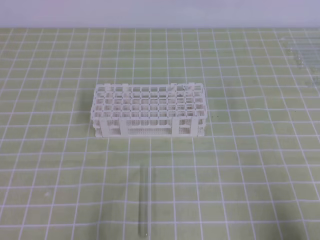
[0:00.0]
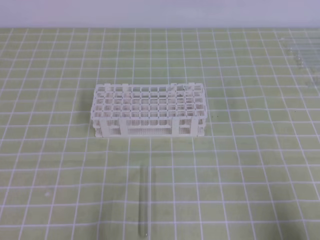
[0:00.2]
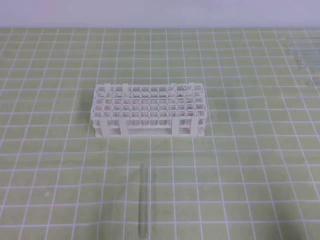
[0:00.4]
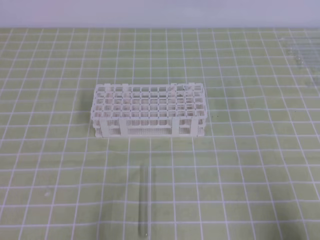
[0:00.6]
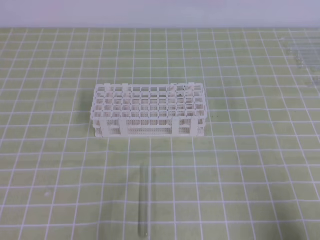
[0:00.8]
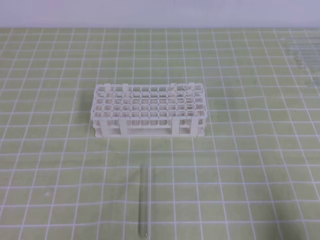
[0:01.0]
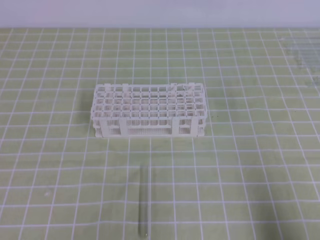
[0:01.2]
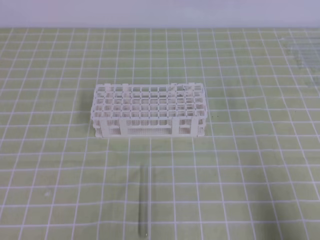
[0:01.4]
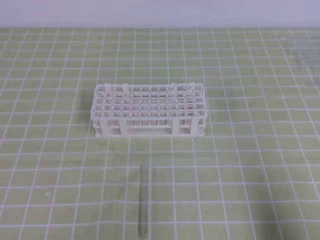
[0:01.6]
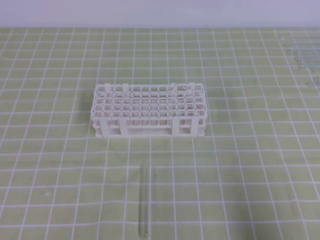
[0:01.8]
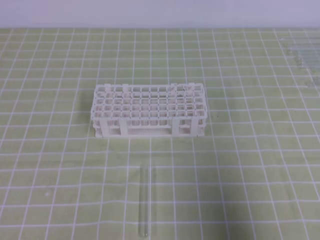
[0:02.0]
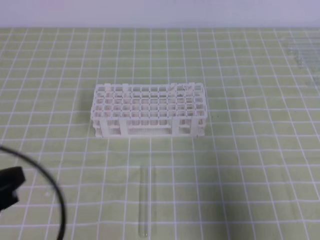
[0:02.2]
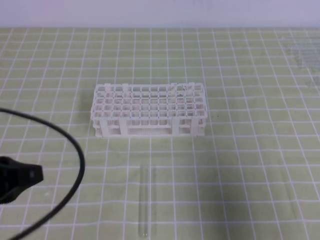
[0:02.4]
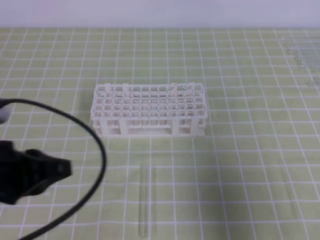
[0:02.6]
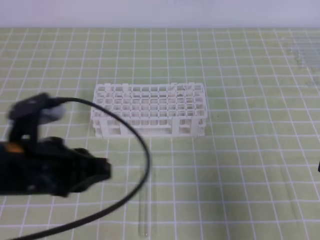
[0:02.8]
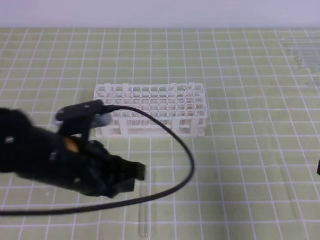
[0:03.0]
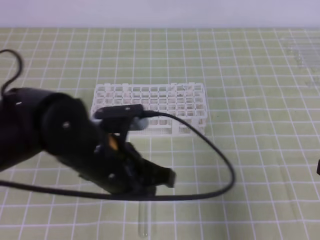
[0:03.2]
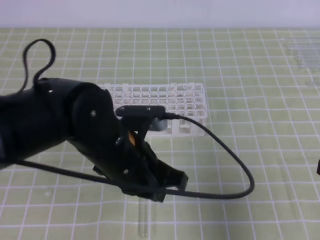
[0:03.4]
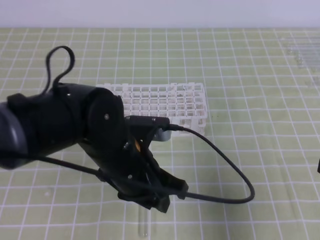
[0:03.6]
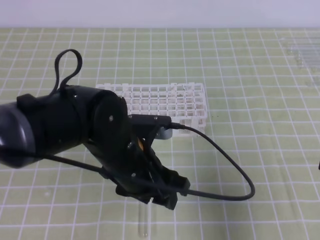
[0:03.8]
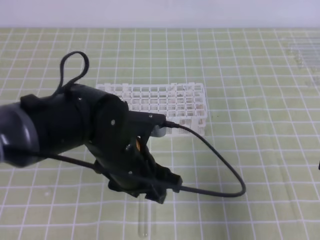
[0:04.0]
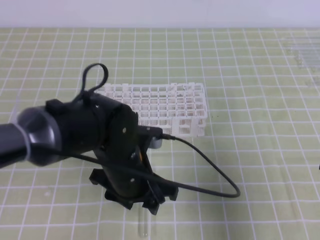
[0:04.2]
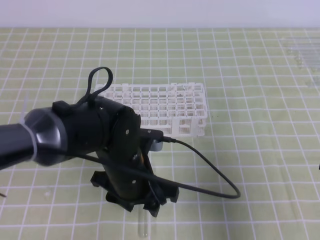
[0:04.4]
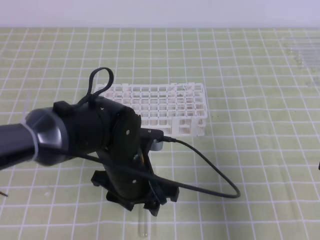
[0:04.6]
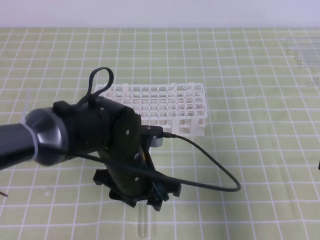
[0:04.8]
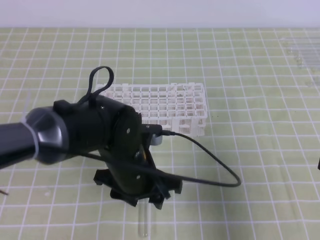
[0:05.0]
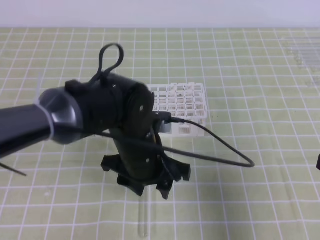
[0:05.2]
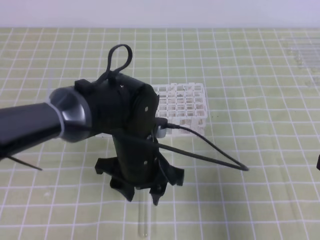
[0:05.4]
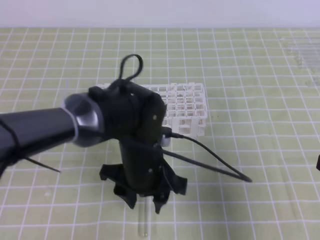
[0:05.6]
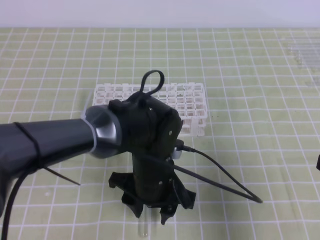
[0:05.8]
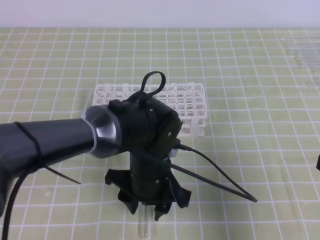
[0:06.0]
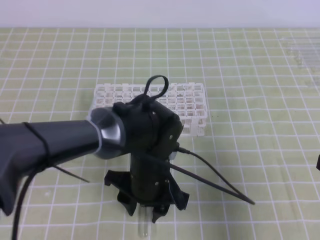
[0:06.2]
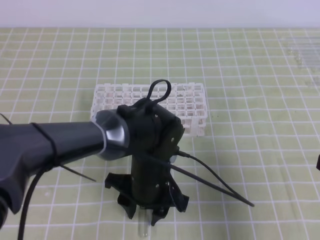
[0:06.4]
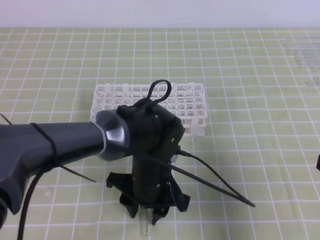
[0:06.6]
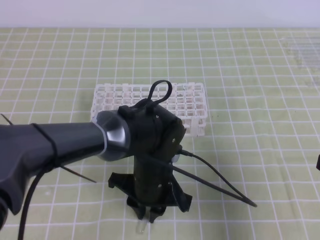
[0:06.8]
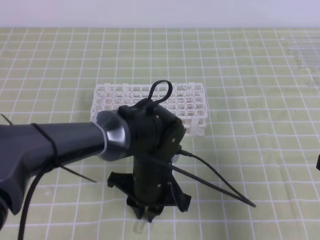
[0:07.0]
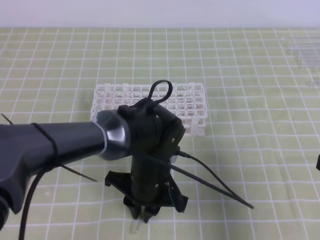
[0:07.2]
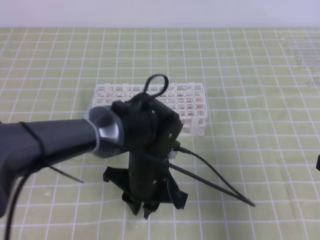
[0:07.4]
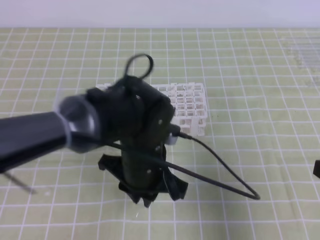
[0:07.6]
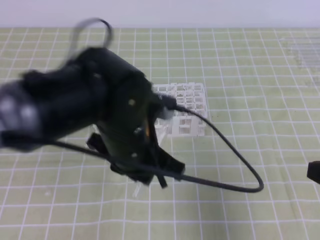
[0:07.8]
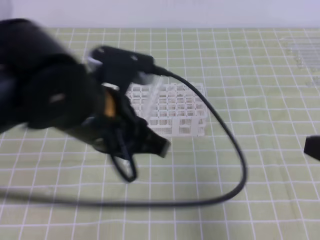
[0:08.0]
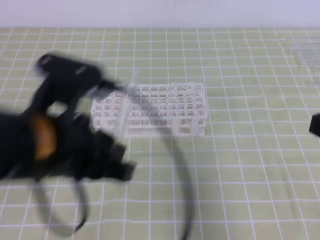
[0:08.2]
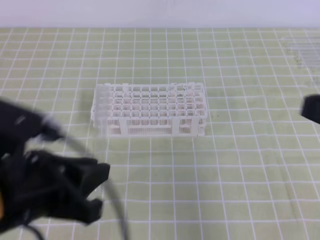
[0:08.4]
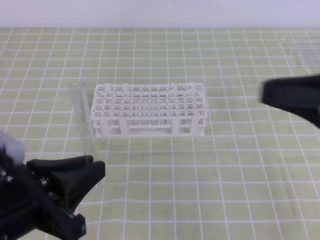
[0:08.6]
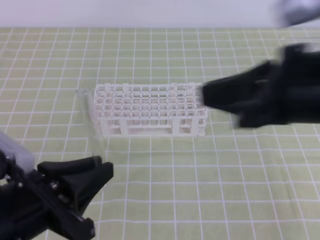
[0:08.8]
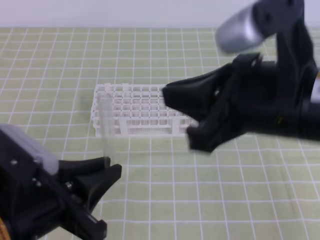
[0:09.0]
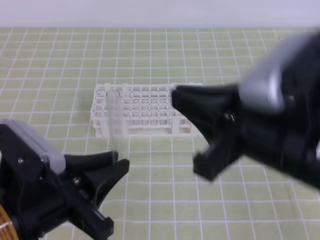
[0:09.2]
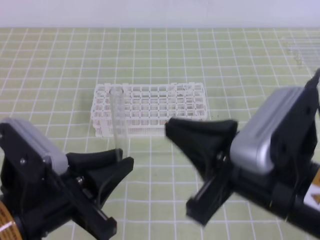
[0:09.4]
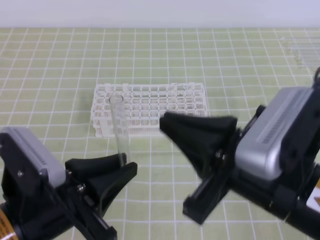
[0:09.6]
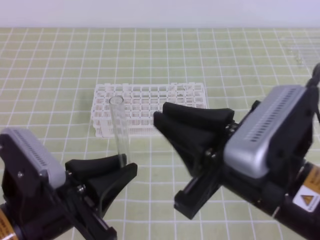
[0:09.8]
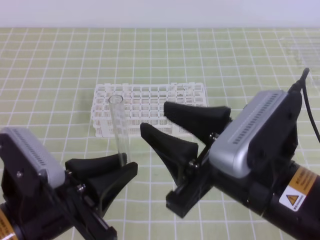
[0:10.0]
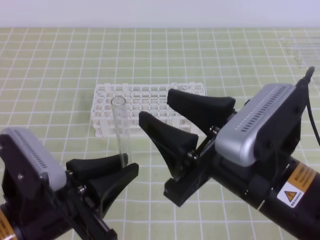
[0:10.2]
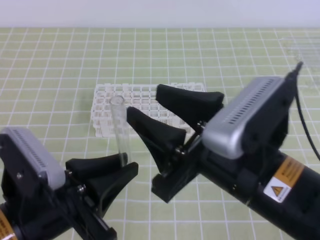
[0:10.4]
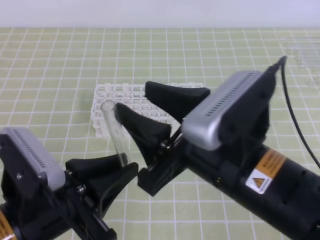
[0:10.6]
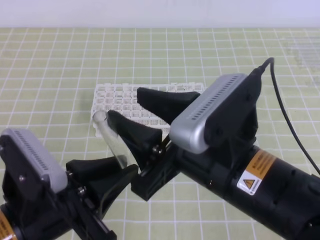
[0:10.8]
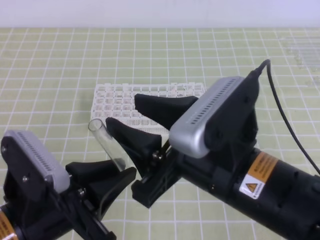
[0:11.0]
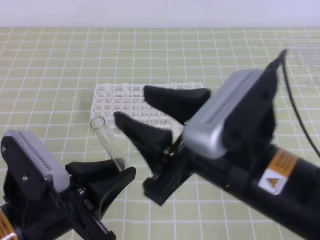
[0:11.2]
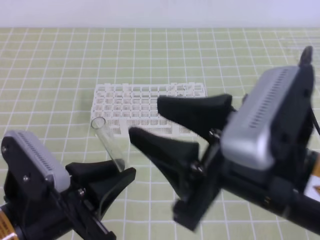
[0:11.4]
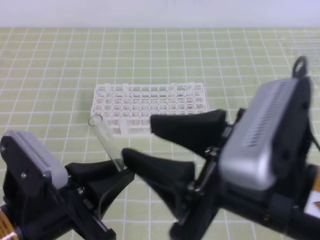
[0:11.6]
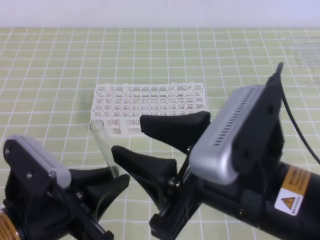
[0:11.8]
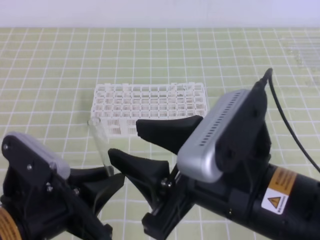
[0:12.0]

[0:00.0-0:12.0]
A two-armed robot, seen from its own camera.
0:01.6 to 0:03.0: The left gripper goes approximately 20 cm to the right, forward and upward. The right gripper travels forward and upward by some 10 cm.
0:03.0 to 0:04.4: The left gripper goes about 10 cm to the right and downward, and opens up.
0:04.4 to 0:06.0: There are only small adjustments of the grippers.
0:06.0 to 0:07.6: The left gripper closes up.
0:07.6 to 0:09.0: The right gripper travels to the left and upward by about 20 cm; the left gripper shifts some 20 cm to the left, backward and upward.
0:09.0 to 0:10.4: The right gripper moves downward, approximately 5 cm, and opens.

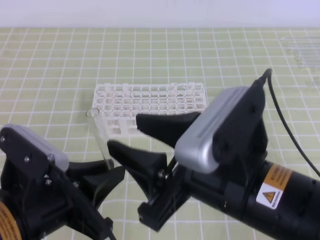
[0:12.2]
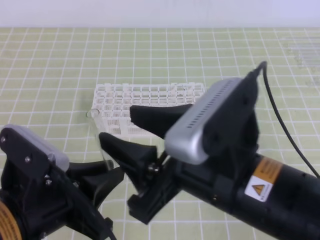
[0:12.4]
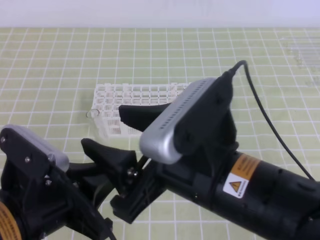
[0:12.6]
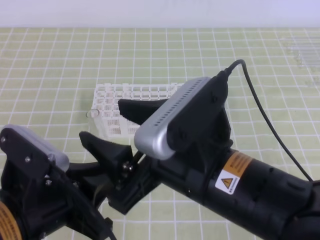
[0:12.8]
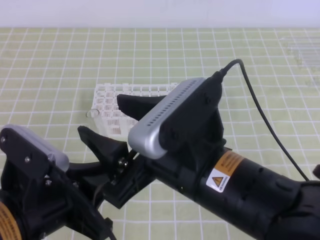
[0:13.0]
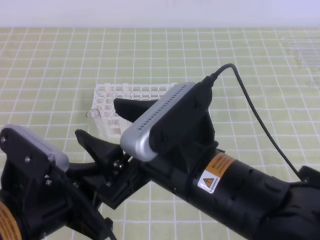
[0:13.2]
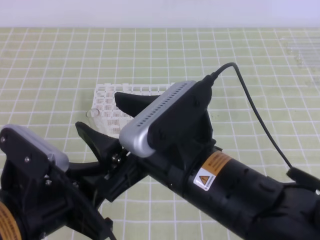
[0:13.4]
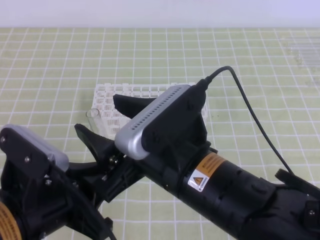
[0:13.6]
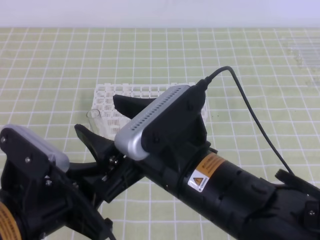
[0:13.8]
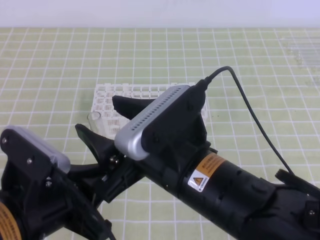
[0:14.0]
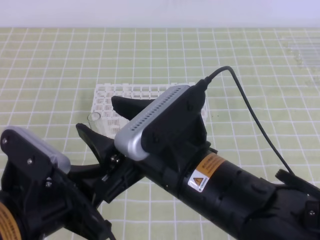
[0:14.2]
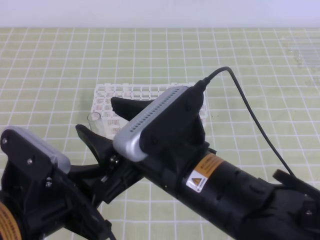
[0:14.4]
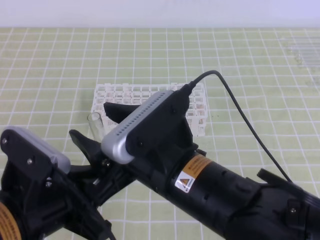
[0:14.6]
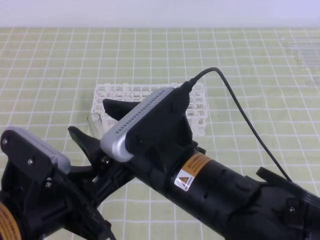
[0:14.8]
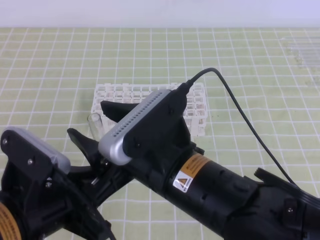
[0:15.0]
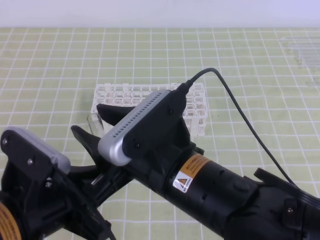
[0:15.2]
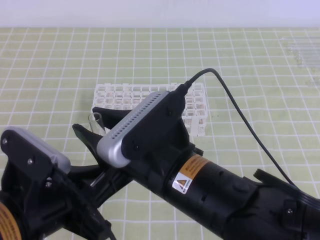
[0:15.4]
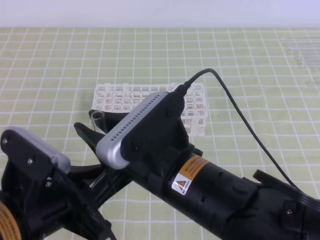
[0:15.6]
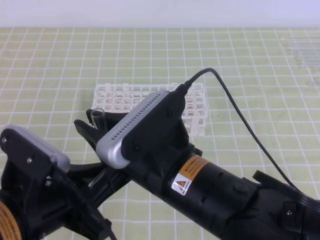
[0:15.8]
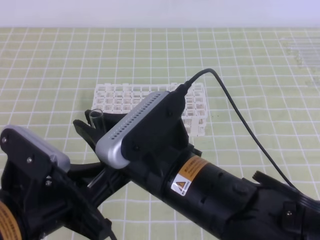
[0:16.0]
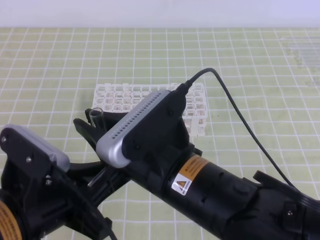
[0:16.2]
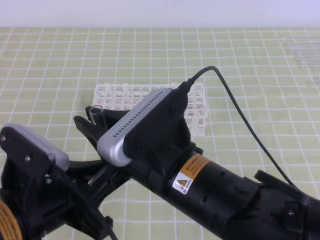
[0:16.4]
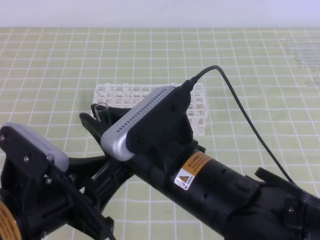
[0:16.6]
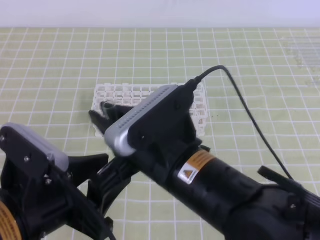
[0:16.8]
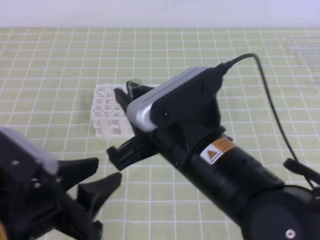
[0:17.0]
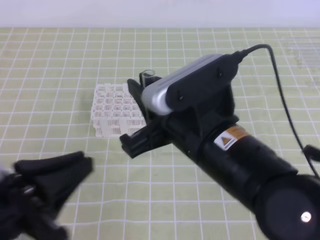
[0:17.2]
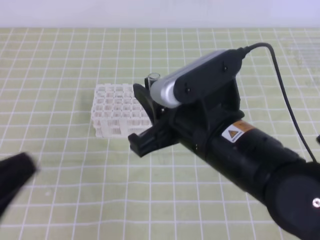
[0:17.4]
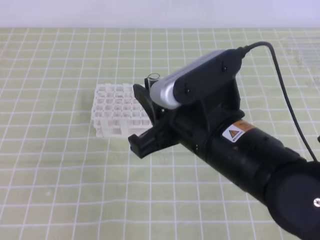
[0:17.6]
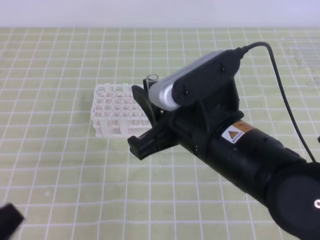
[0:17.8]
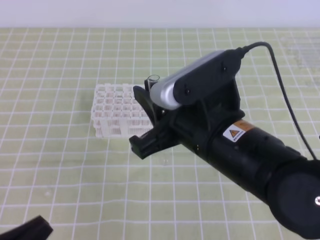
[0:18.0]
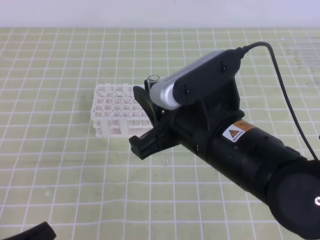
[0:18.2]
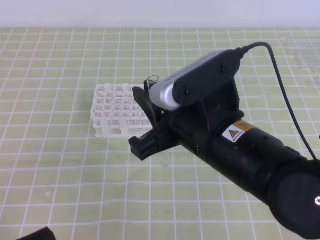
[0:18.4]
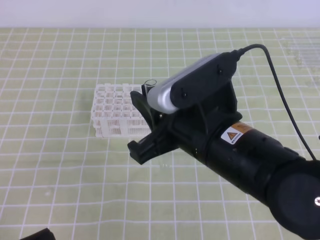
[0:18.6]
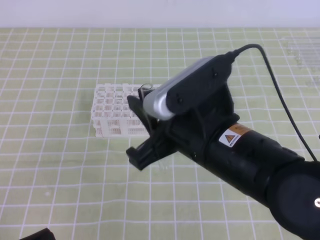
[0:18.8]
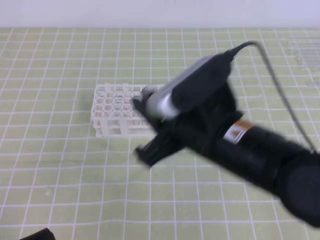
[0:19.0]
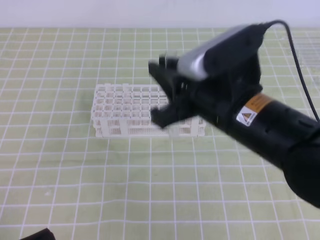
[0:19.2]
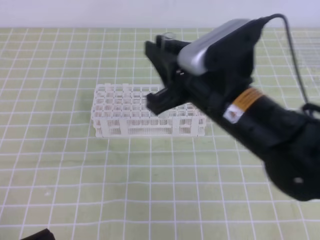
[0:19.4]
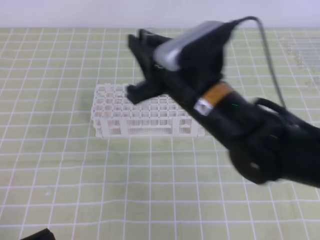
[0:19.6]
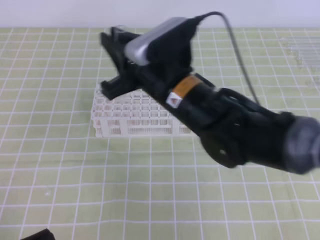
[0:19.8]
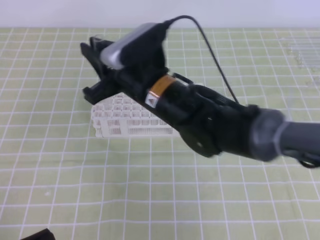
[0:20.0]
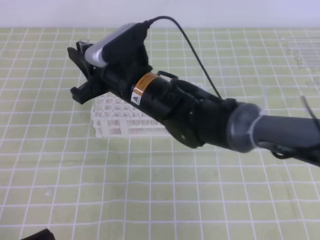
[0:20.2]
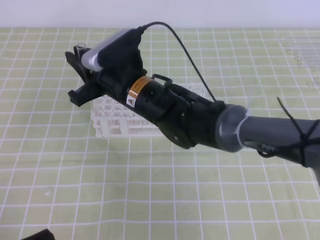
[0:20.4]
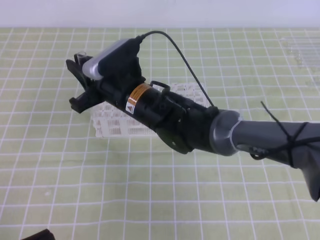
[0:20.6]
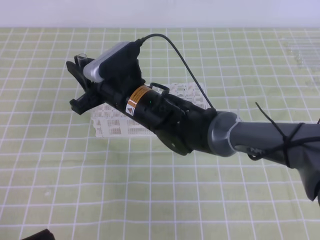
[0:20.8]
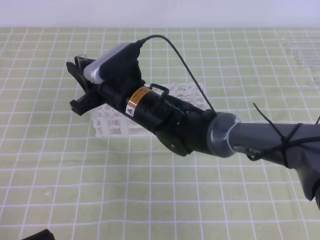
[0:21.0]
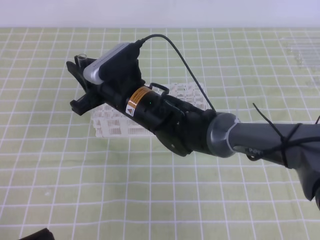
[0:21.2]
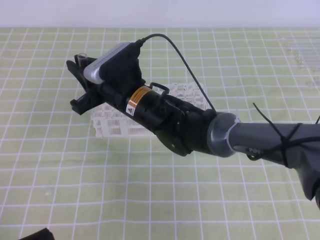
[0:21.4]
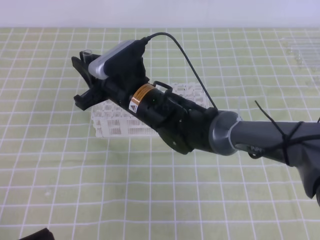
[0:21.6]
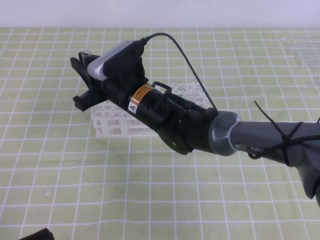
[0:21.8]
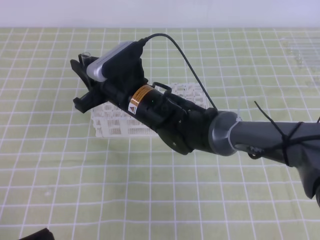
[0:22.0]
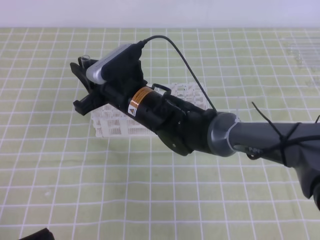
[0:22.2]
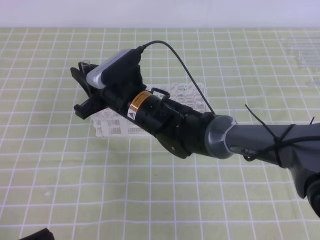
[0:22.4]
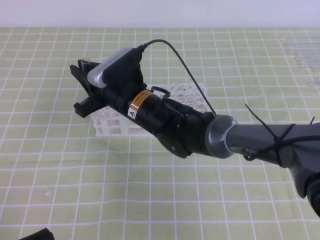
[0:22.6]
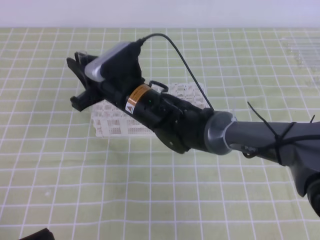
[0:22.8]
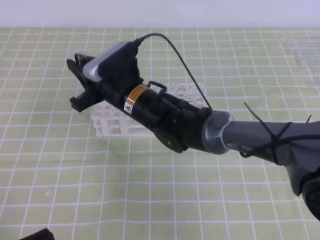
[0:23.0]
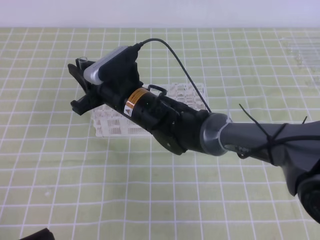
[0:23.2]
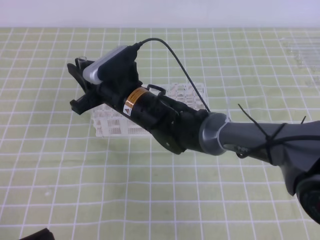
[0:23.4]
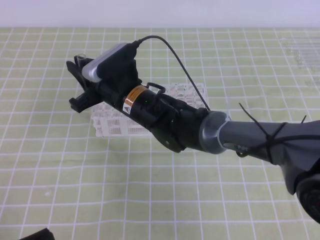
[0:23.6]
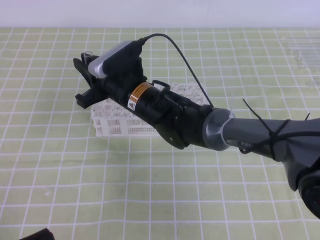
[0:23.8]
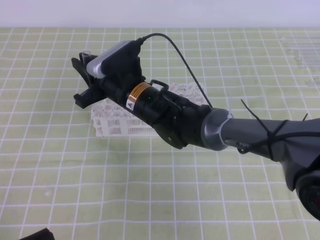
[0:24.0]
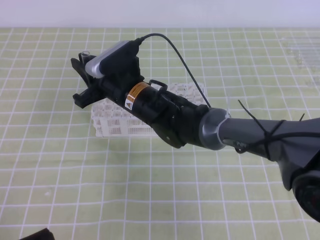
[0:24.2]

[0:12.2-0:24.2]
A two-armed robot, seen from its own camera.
0:12.2 to 0:13.8: The right gripper shifts by roughly 5 cm.
0:13.8 to 0:15.2: The grippers make only small movements.
0:15.2 to 0:16.6: The left gripper opens up; the right gripper closes.
0:16.6 to 0:18.2: The left gripper is displaced to the left, backward and downward by some 15 cm, and closes up. Meanwhile the right gripper moves roughly 5 cm.
0:18.2 to 0:19.8: The right gripper shifts about 10 cm forward.
0:19.8 to 0:21.2: The right gripper shifts about 10 cm to the left, downward and forward.
0:21.2 to 0:22.6: The two grippers keep their place.
0:22.6 to 0:24.2: The grippers stay close to where they were, moving slightly.
